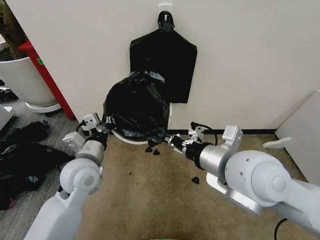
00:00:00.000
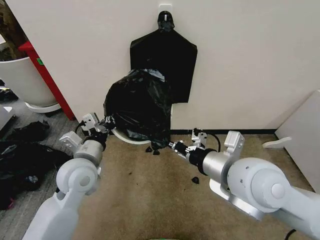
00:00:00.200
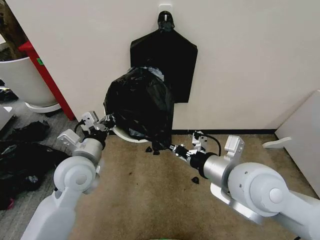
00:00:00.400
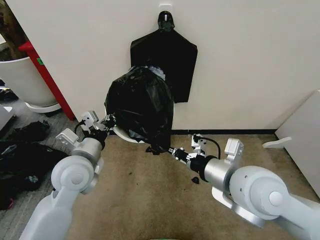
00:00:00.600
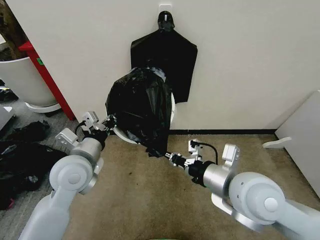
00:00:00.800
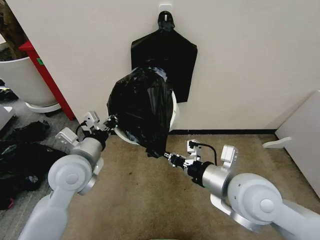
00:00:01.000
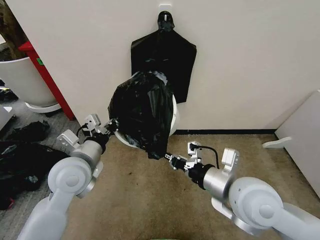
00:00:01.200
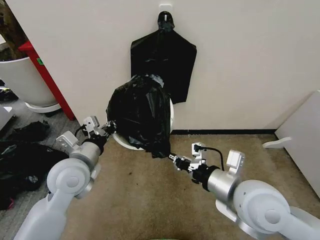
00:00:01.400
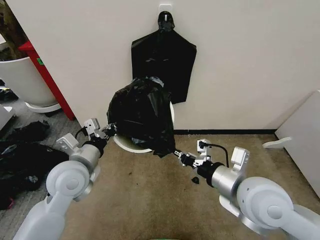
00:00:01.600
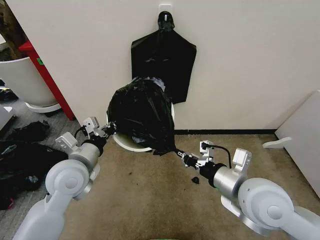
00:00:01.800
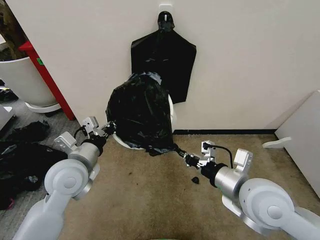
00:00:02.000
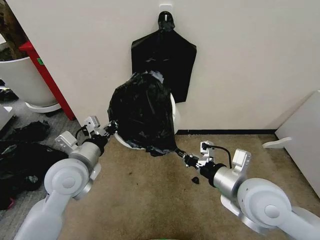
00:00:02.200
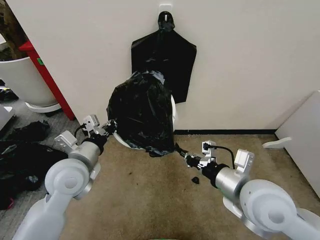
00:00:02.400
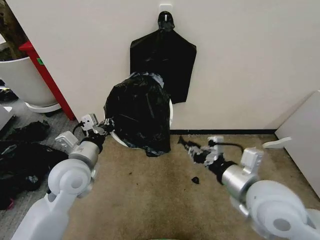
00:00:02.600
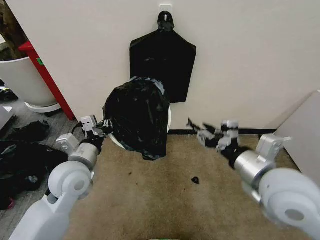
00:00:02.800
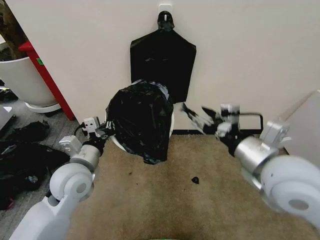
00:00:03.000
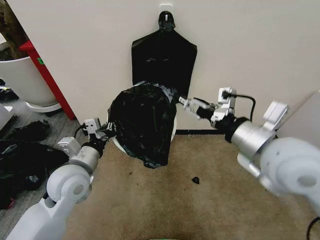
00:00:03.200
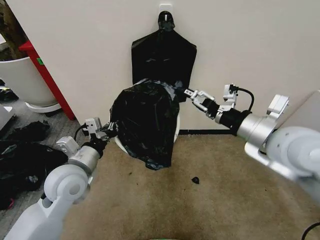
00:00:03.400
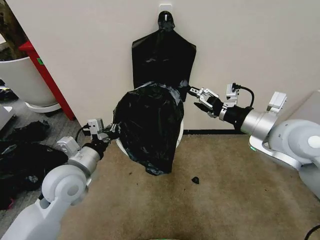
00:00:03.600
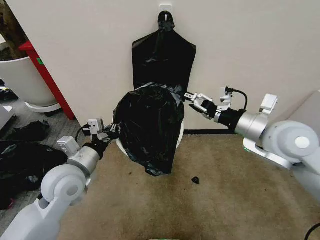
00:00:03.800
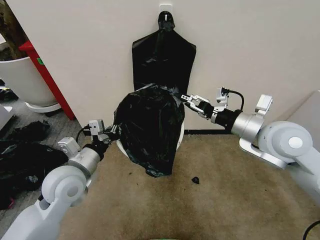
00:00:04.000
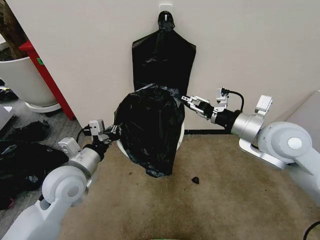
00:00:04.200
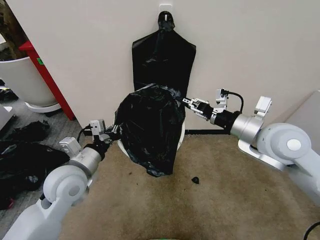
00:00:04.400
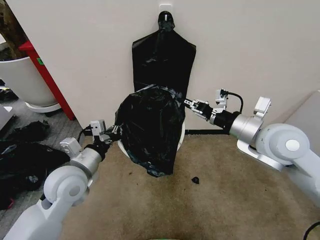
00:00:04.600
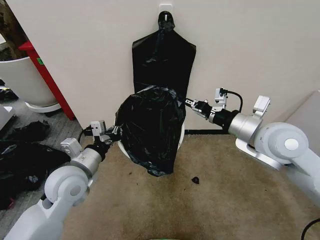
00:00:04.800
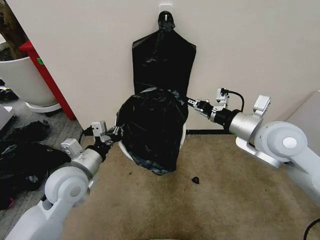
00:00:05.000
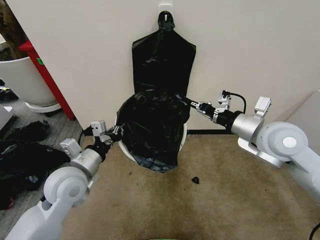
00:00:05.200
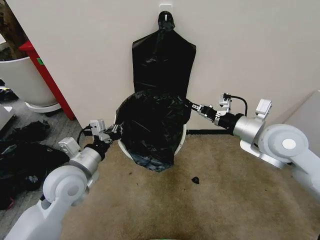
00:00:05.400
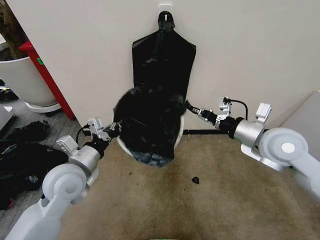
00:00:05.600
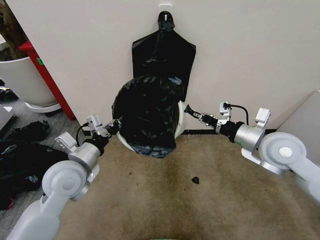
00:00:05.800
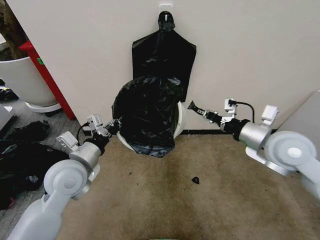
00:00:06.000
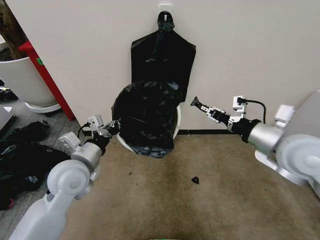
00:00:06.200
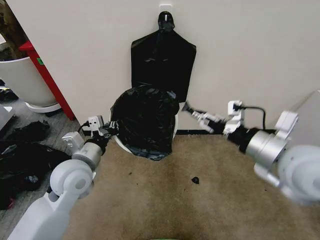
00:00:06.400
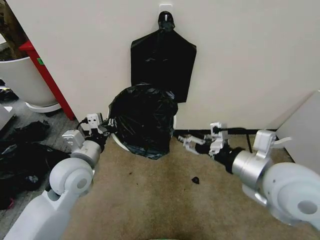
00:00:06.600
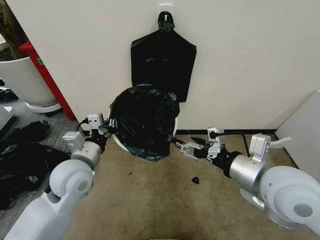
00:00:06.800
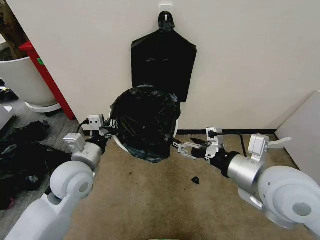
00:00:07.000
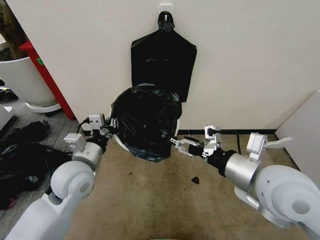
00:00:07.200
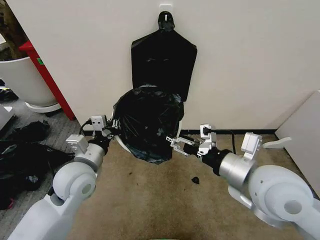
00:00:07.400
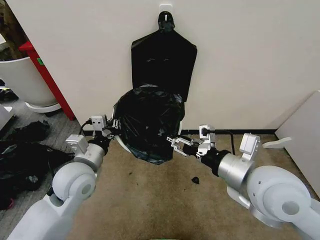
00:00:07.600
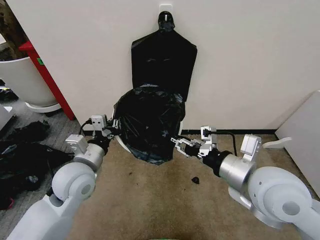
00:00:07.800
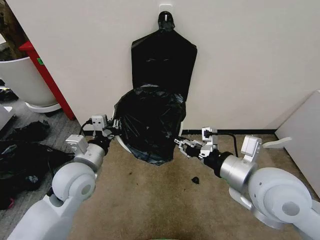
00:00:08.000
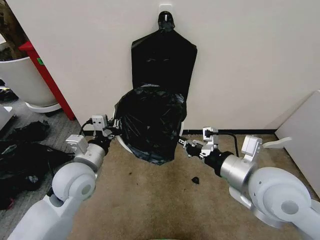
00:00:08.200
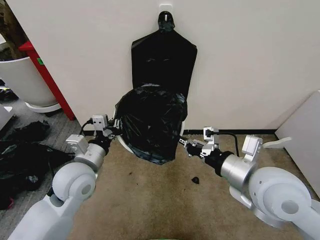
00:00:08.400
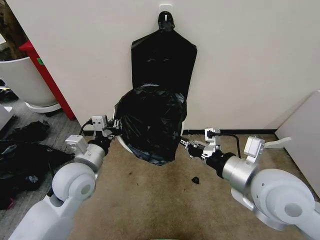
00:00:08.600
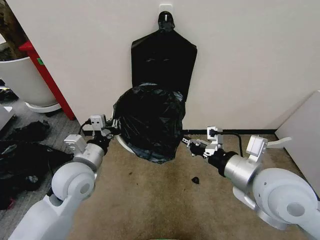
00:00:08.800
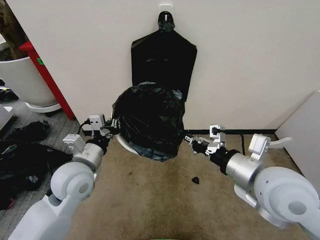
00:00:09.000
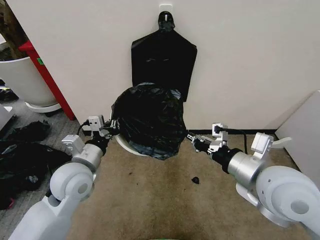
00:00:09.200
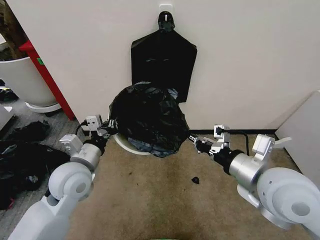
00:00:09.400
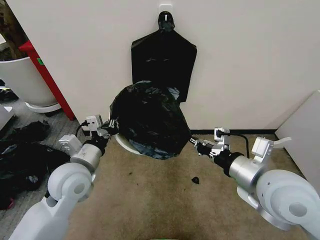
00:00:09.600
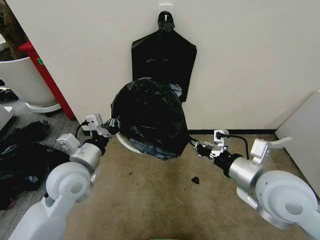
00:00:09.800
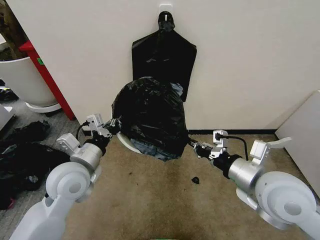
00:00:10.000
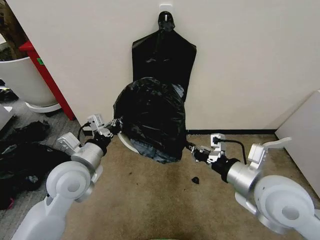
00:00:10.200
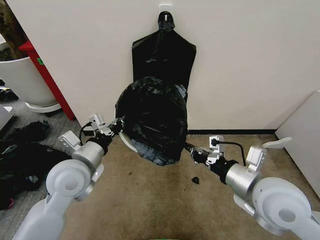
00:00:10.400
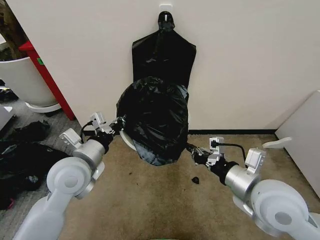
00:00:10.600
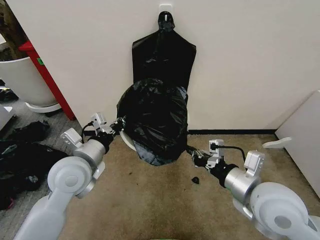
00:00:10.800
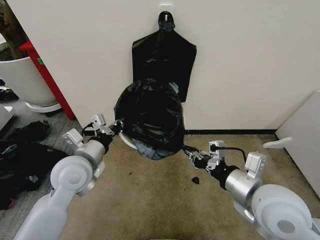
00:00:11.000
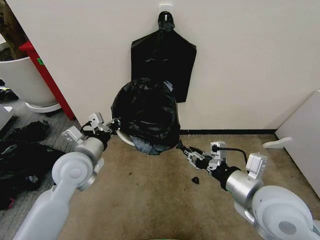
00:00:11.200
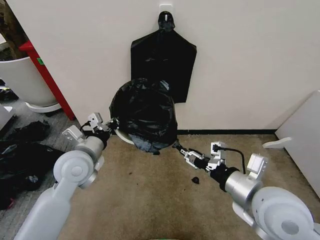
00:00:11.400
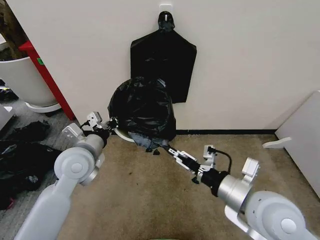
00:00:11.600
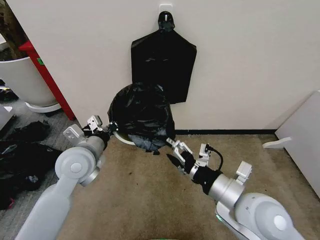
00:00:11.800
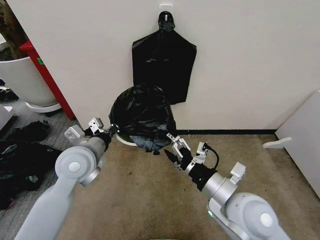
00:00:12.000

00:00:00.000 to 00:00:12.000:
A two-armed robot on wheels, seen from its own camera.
Task of the whole recording: Place the garbage bag over the trash bin.
00:00:00.000 to 00:00:01.600: The right gripper is displaced downward by roughly 5 cm.
00:00:01.600 to 00:00:03.000: The right gripper heads upward, covering about 5 cm, and opens.
00:00:03.000 to 00:00:04.400: The right gripper is displaced forward by roughly 10 cm.
00:00:04.400 to 00:00:06.000: The right gripper closes up.
00:00:06.000 to 00:00:07.600: The right gripper shifts about 15 cm backward and to the left, and opens its fingers.
00:00:07.600 to 00:00:09.000: The right gripper closes.
00:00:10.400 to 00:00:12.000: The right gripper travels to the left by roughly 5 cm, and opens its fingers.

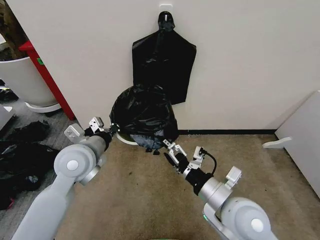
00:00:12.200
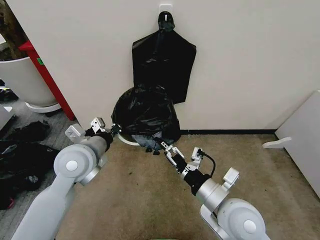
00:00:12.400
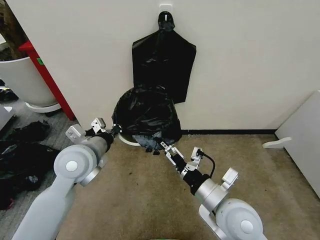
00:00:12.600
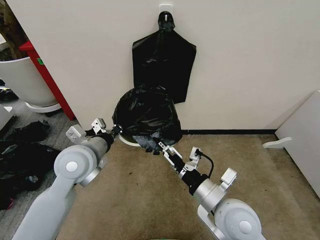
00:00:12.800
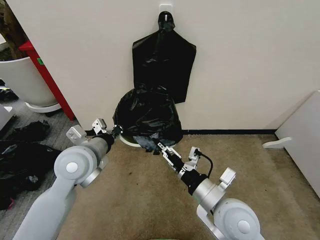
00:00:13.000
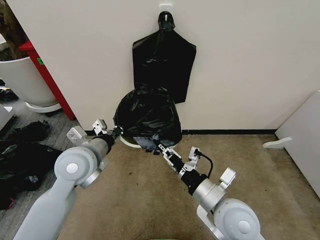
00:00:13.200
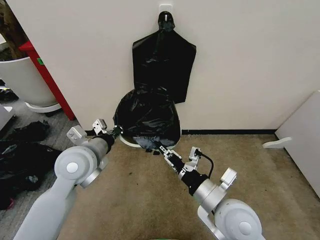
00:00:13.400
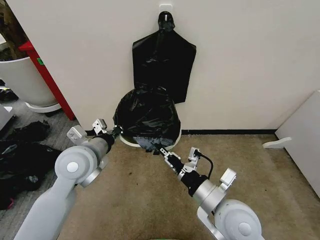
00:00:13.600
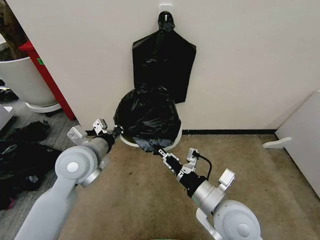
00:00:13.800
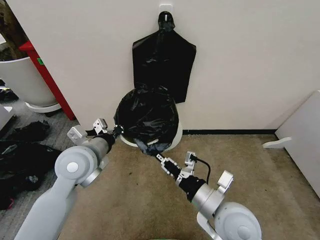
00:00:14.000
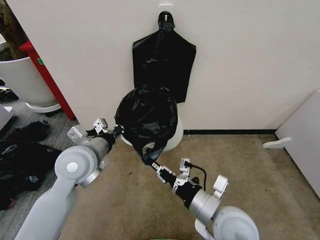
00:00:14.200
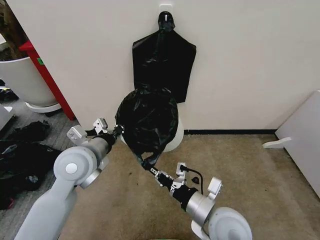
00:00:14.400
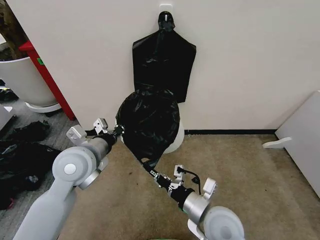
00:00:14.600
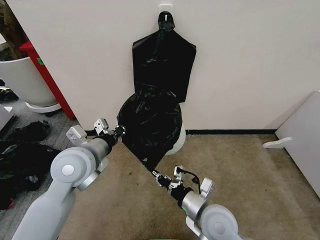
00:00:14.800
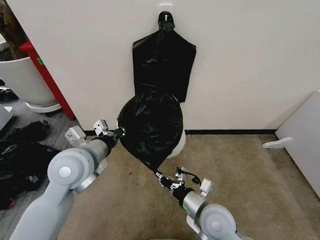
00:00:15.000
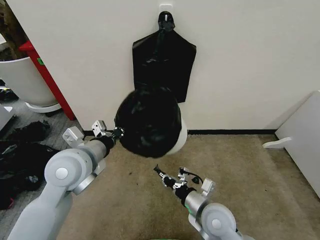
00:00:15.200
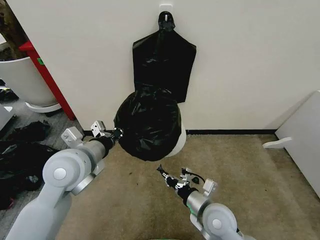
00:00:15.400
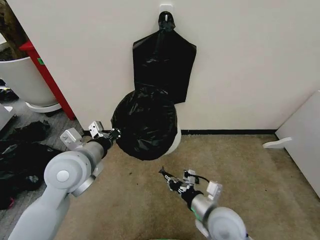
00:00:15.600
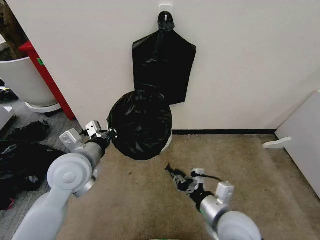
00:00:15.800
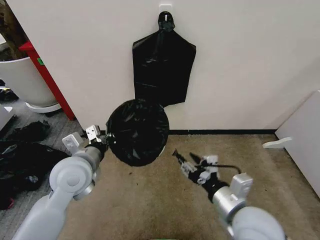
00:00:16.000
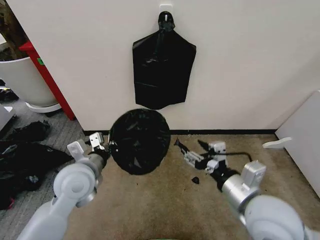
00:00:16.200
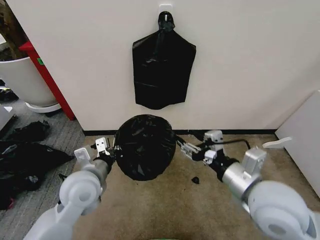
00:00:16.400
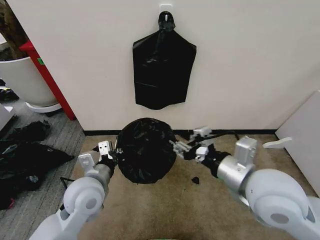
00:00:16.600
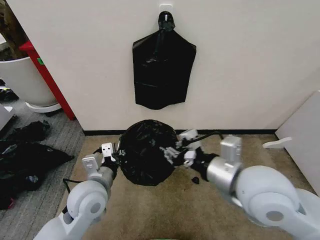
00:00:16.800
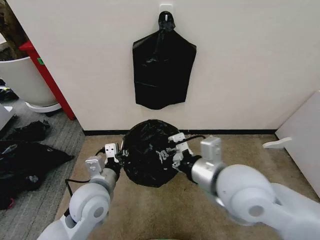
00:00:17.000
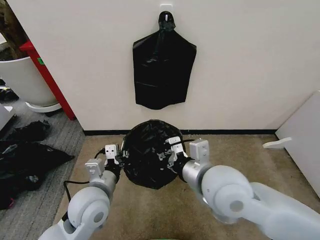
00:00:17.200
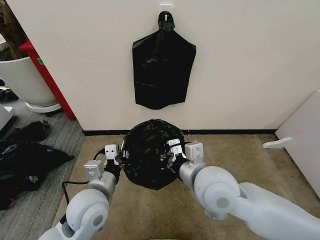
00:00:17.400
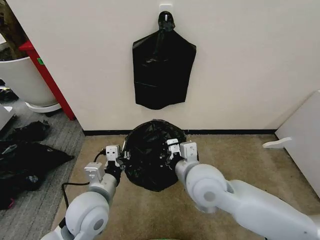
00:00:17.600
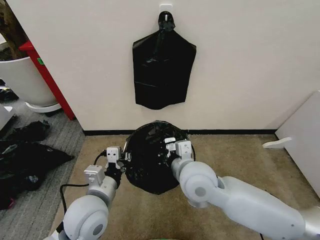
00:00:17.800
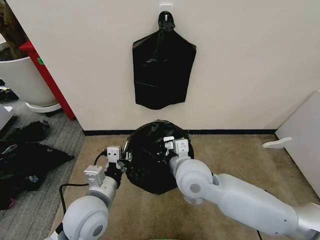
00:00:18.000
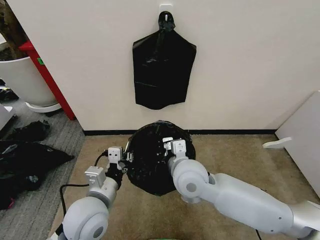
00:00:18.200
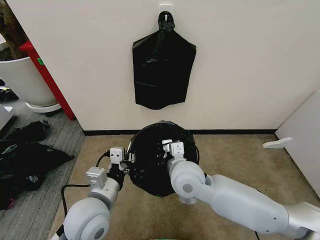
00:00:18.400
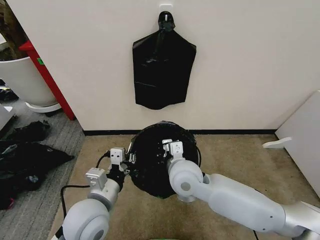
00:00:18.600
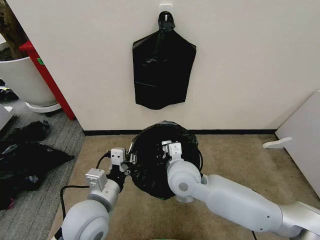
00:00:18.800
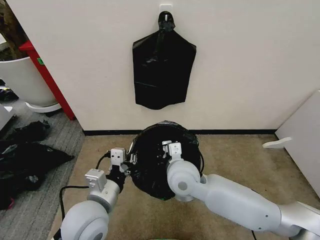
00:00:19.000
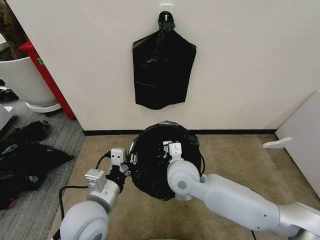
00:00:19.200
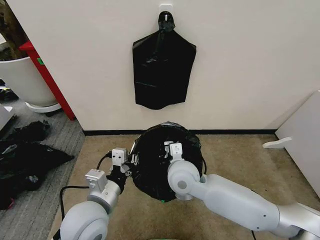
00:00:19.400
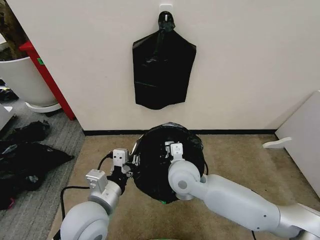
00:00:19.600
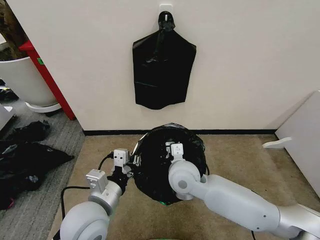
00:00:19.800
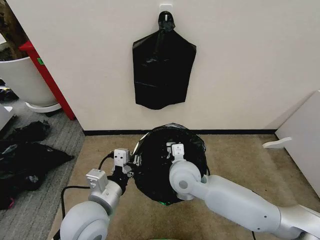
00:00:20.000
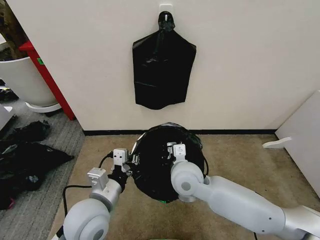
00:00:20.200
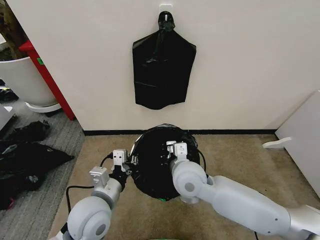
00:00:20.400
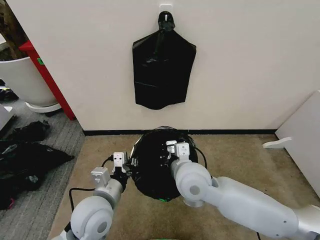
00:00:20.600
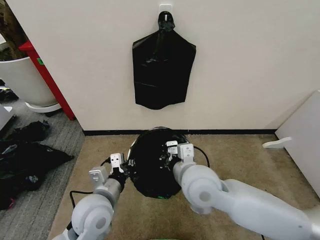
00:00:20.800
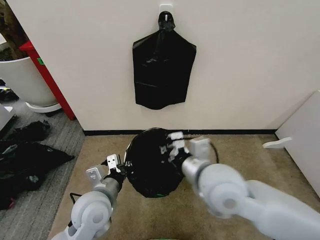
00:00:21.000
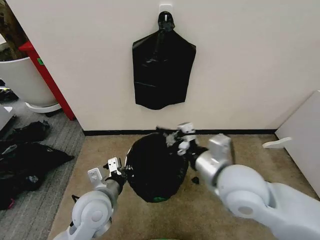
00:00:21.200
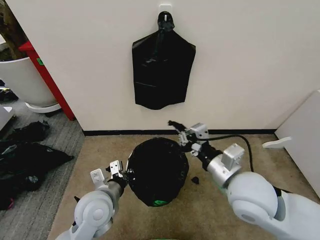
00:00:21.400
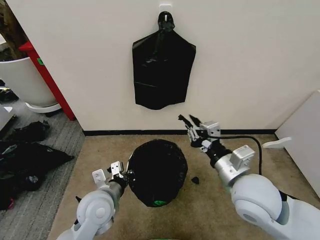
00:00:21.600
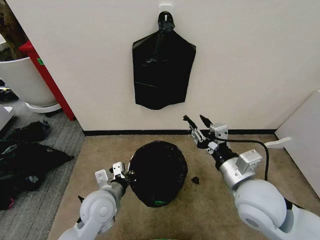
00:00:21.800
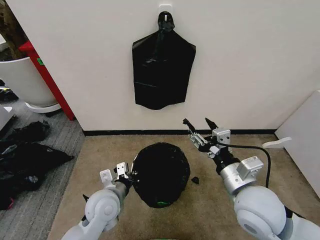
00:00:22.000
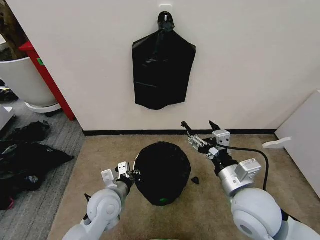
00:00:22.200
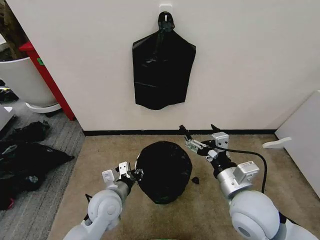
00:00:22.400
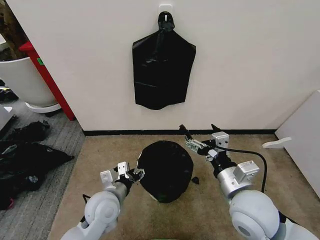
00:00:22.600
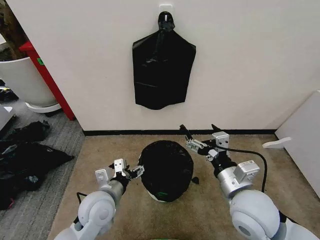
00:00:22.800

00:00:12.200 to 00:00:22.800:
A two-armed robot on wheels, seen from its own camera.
Task of the whole recording: Place the garbage bag over the trash bin.
00:00:12.200 to 00:00:13.800: The right gripper closes.
00:00:13.800 to 00:00:15.200: The right gripper travels downward by approximately 10 cm.
00:00:15.200 to 00:00:16.800: The left gripper travels downward by roughly 10 cm, while the right gripper shifts roughly 20 cm upward, and opens, then closes again.
00:00:16.800 to 00:00:18.200: The right gripper moves to the left, downward and forward, some 15 cm.
00:00:18.200 to 00:00:19.800: The grippers move only a little.
00:00:19.800 to 00:00:21.200: The left gripper ends up about 5 cm from where it was; the right gripper shifts some 15 cm upward, to the right and backward.
00:00:21.200 to 00:00:22.800: The right gripper moves downward, approximately 5 cm, and opens. Meanwhile the left gripper opens up.
